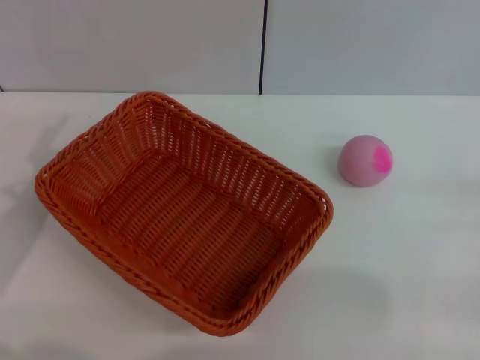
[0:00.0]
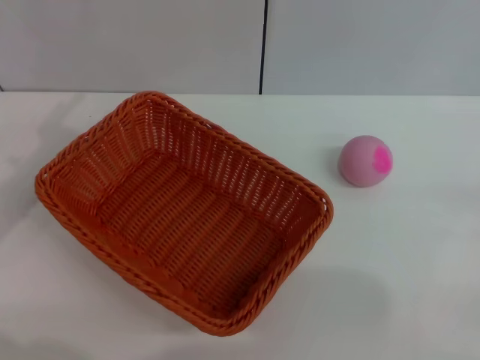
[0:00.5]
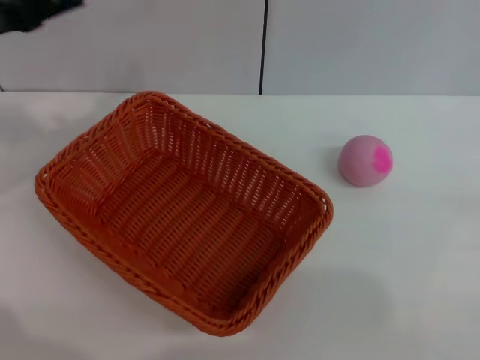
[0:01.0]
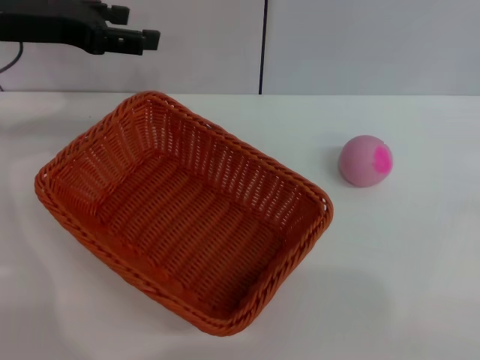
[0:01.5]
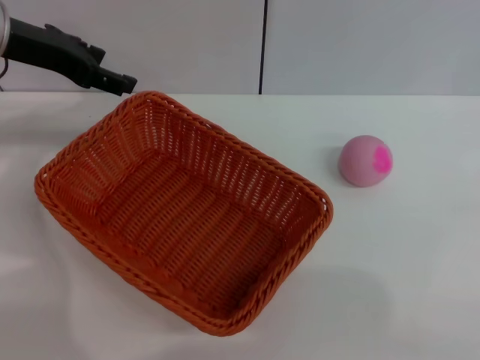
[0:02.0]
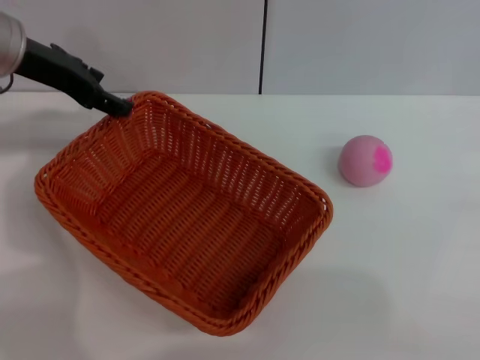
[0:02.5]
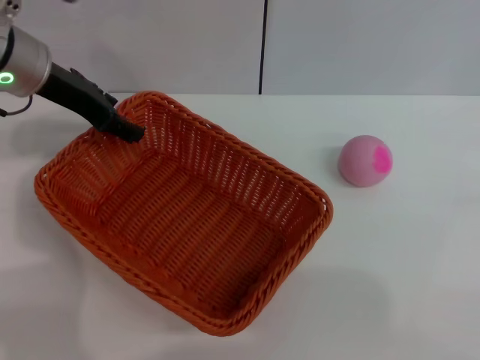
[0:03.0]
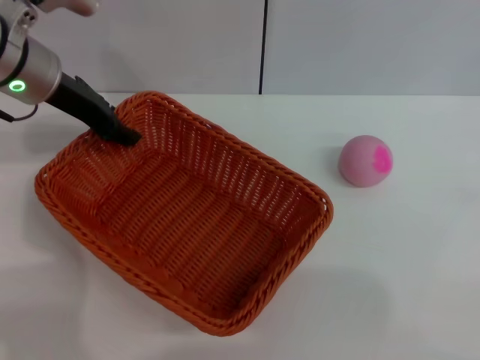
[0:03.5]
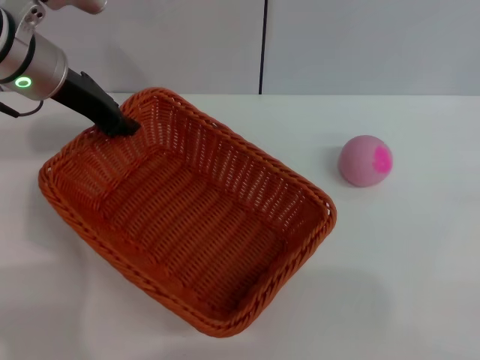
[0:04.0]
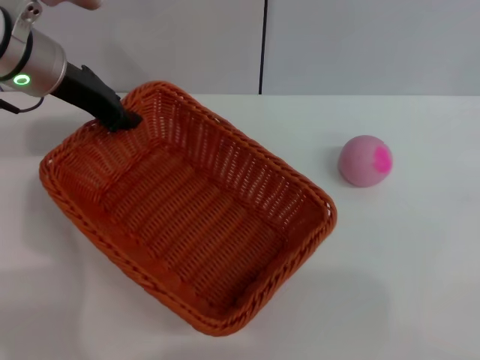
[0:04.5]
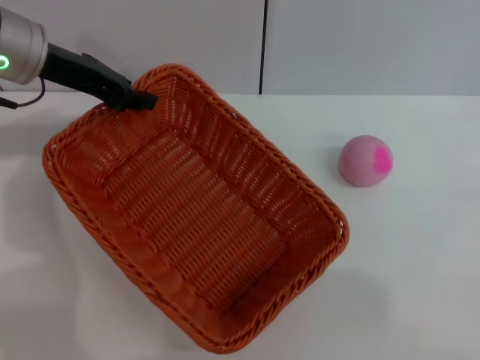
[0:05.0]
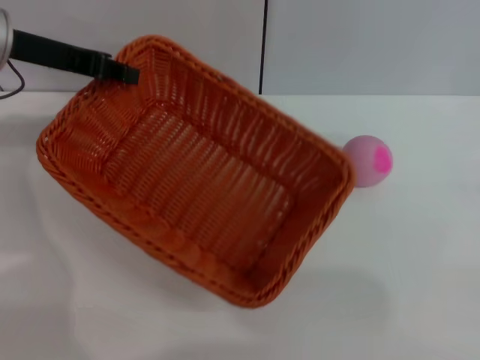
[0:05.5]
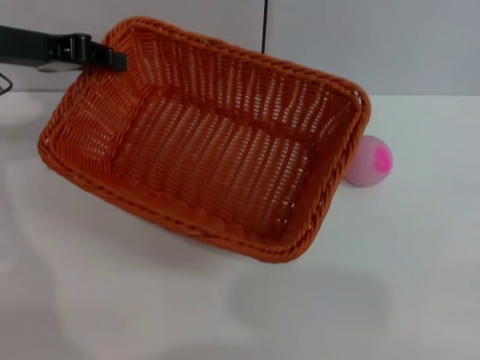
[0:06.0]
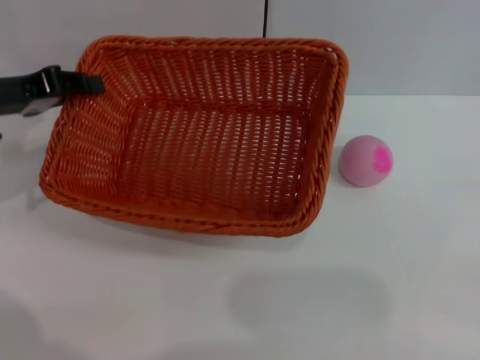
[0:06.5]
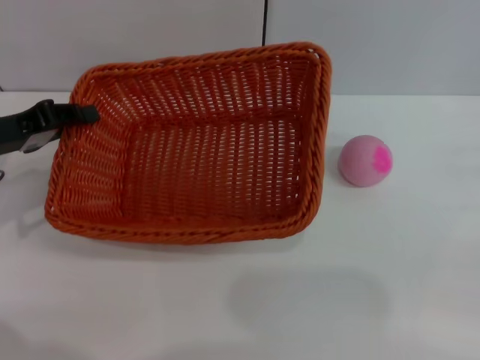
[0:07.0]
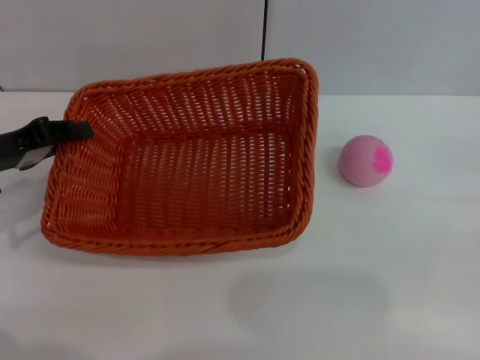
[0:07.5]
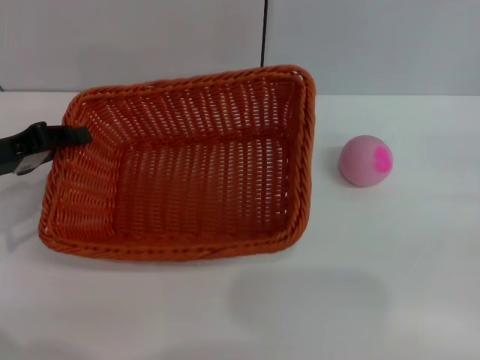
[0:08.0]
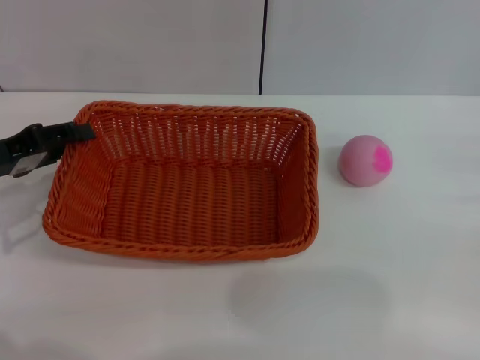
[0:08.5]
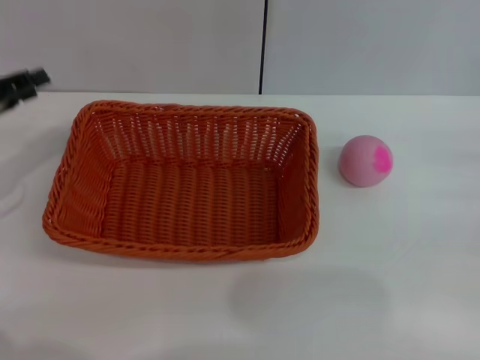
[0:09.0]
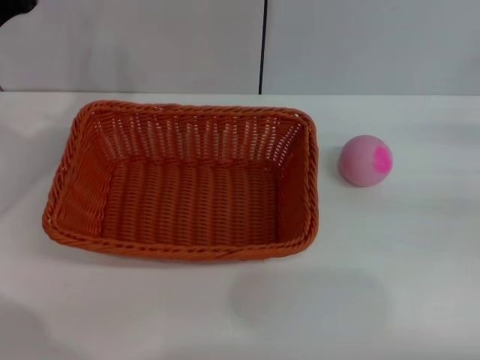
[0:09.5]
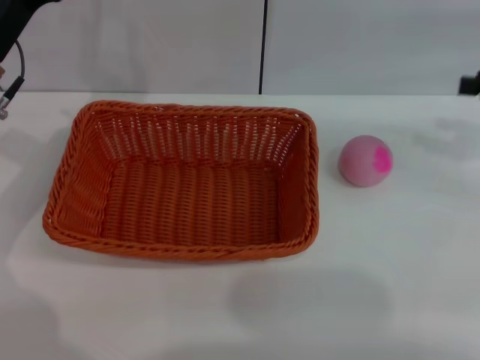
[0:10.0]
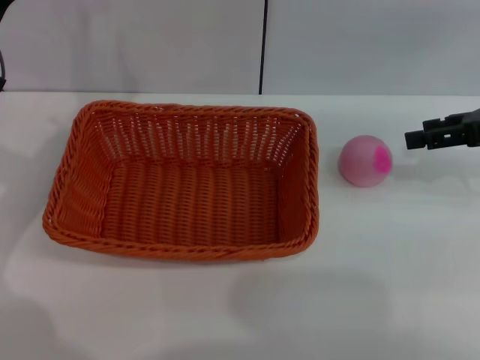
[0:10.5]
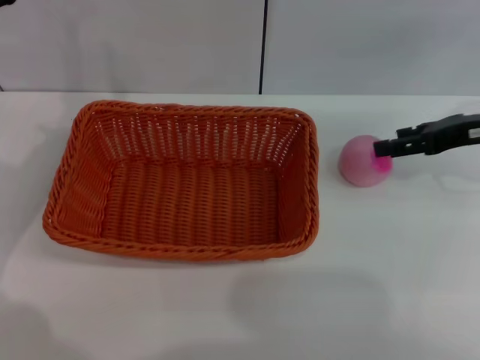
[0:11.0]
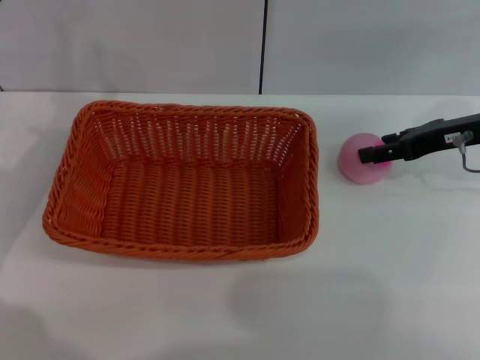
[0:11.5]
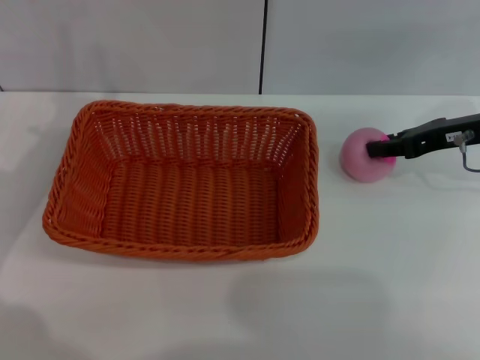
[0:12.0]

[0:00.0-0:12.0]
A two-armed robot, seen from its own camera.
Step, 0:00.0 to 0:04.0: Pick up the light basket with the left gripper.
Step, 0:04.5 to 0:08.5: Place the light basket in the center of view with the right gripper.
0:00.0 to 0:02.0: The left gripper goes roughly 20 cm forward and upward.
0:02.0 to 0:04.0: The left gripper moves approximately 5 cm, and closes up.
0:04.0 to 0:06.0: The left gripper is displaced to the left by approximately 5 cm.
0:06.0 to 0:08.0: The left gripper travels downward and backward by some 15 cm.
0:08.0 to 0:10.0: The right gripper shifts some 15 cm upward and forward, while the left gripper shifts some 5 cm to the right, and opens up.
0:10.0 to 0:12.0: The right gripper travels to the left and downward by about 10 cm, and closes up.

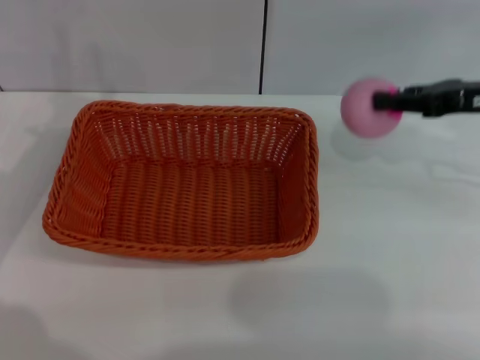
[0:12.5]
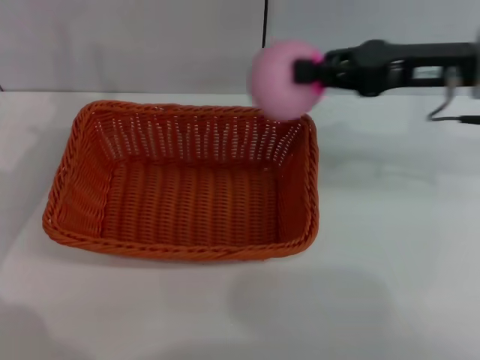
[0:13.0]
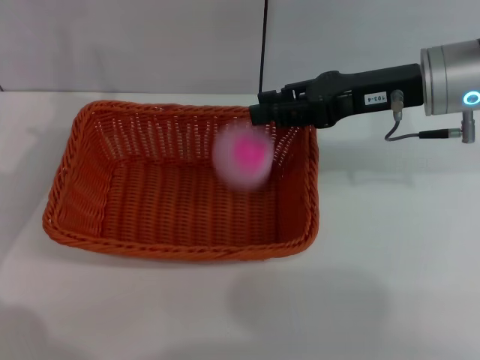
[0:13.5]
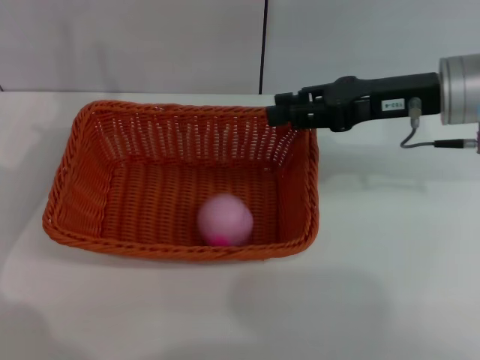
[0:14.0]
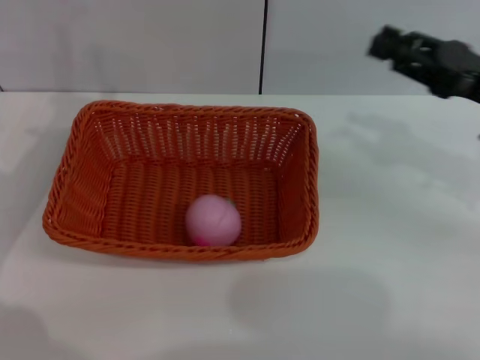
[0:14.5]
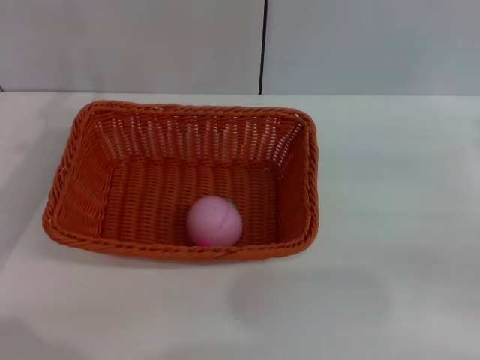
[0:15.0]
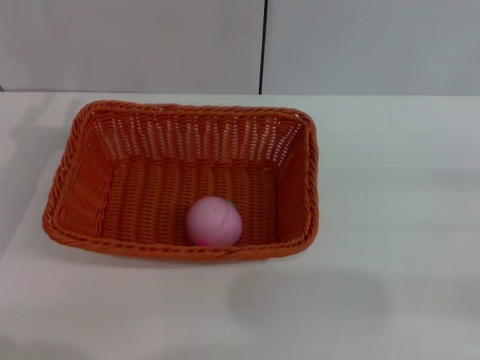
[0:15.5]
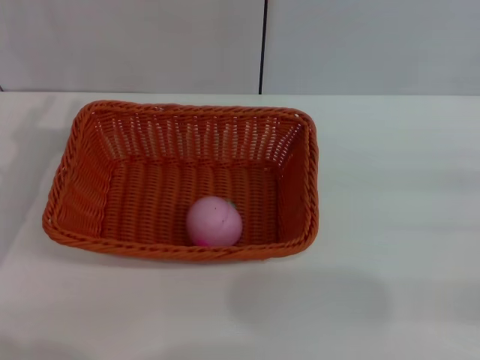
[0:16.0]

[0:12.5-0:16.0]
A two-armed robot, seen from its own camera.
0:12.5 to 0:14.5: The right gripper reaches some 10 cm to the left, then returns.
0:14.5 to 0:16.0: The right gripper heads to the right and backward, covering approximately 15 cm.
